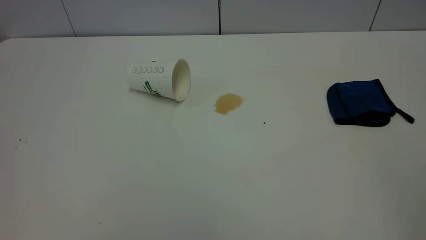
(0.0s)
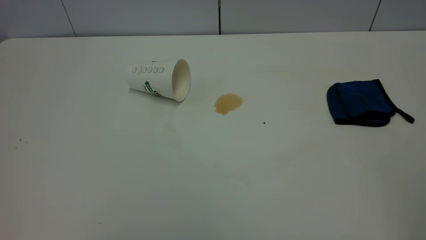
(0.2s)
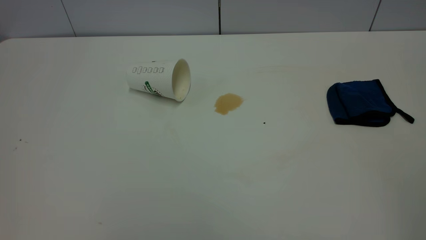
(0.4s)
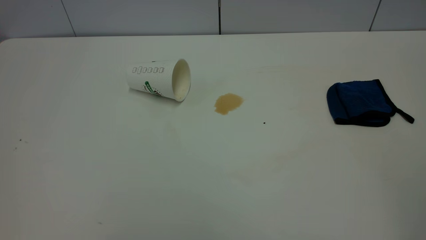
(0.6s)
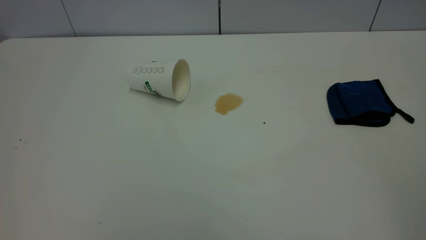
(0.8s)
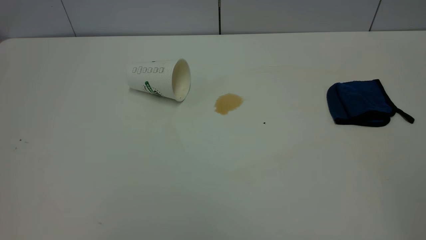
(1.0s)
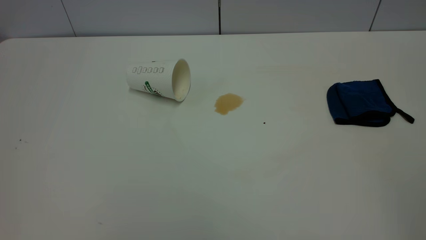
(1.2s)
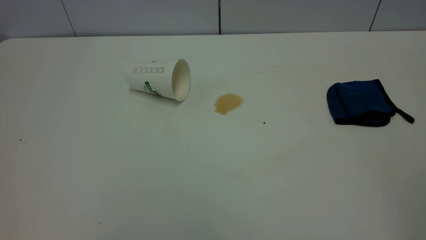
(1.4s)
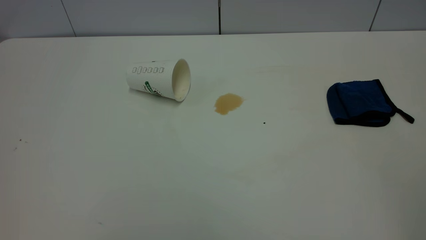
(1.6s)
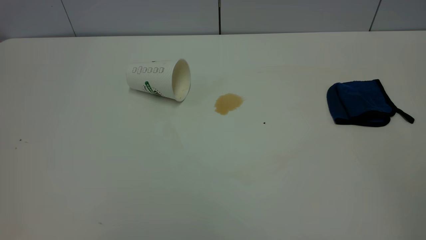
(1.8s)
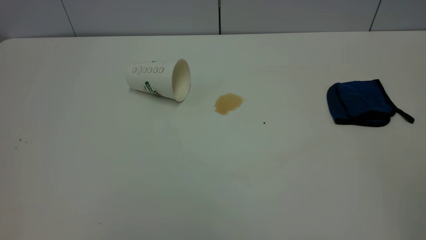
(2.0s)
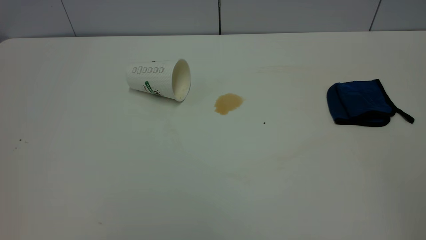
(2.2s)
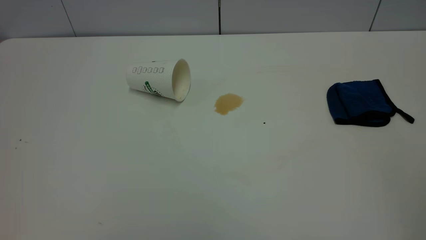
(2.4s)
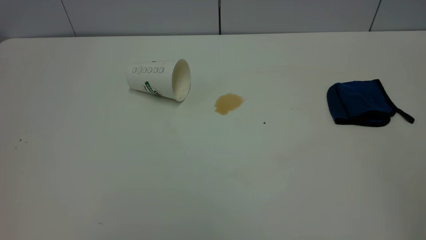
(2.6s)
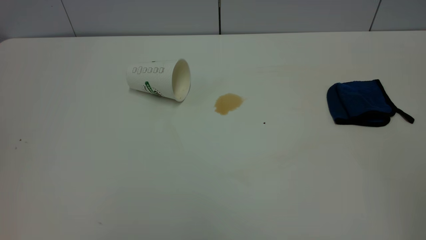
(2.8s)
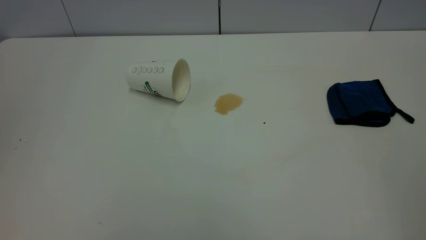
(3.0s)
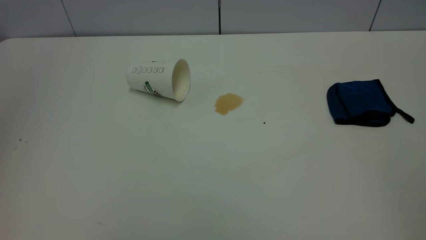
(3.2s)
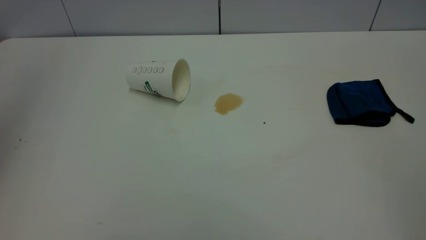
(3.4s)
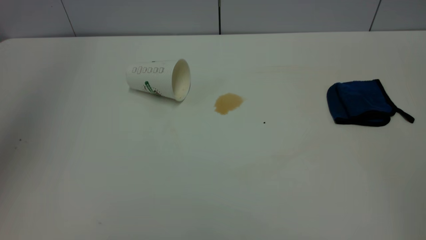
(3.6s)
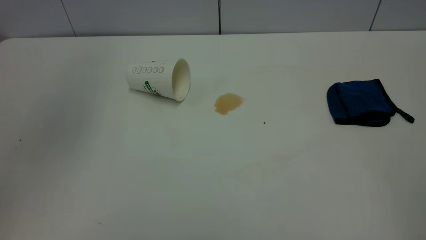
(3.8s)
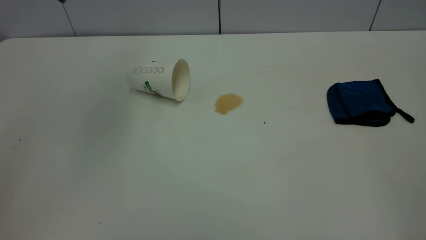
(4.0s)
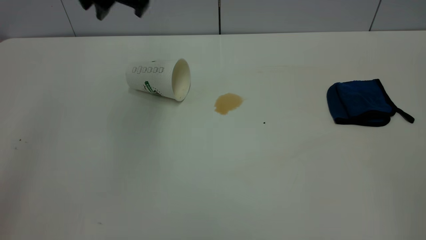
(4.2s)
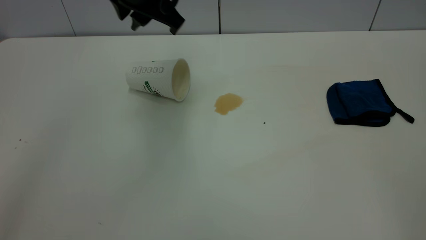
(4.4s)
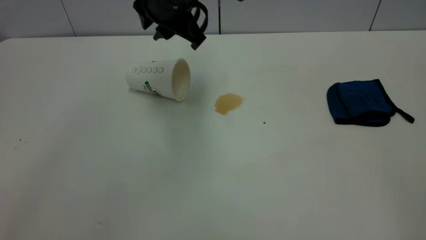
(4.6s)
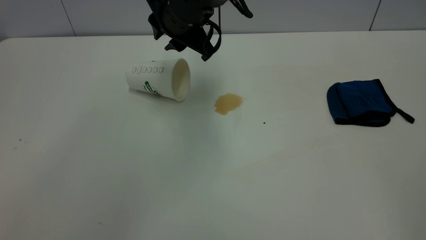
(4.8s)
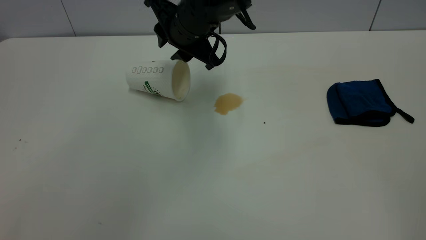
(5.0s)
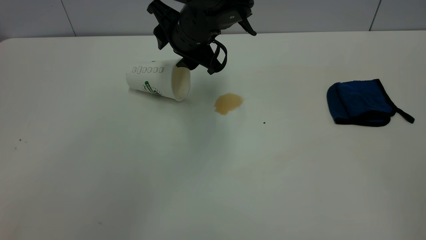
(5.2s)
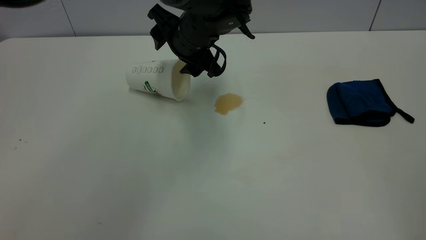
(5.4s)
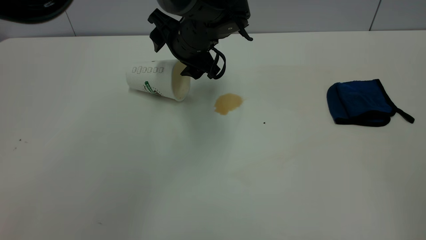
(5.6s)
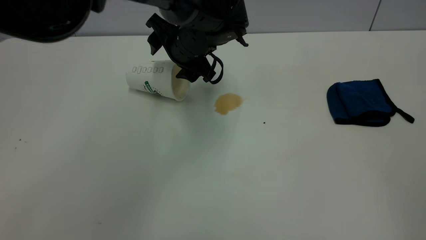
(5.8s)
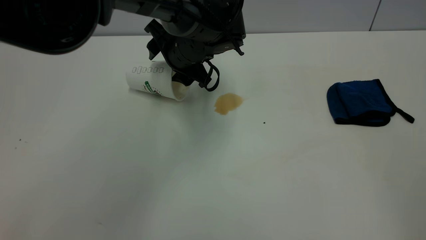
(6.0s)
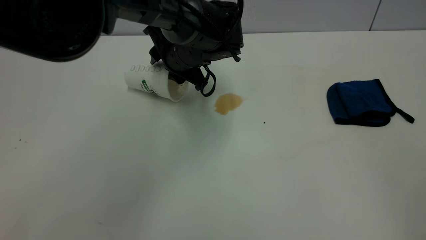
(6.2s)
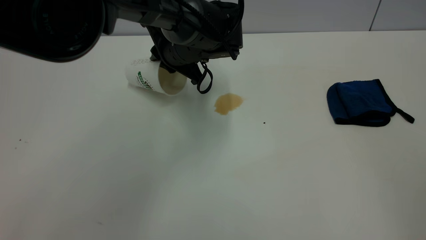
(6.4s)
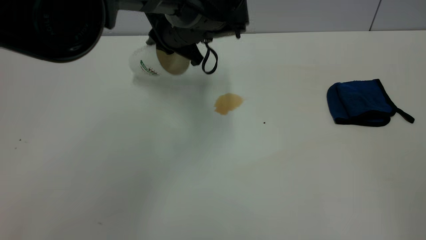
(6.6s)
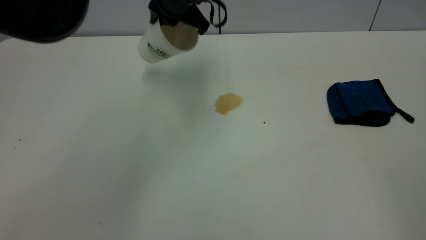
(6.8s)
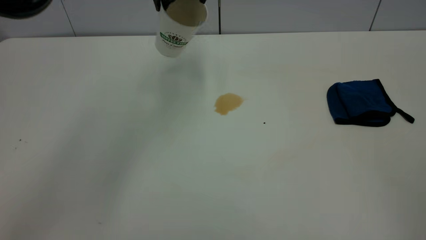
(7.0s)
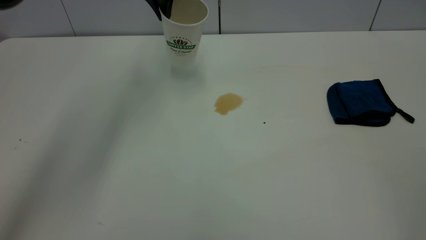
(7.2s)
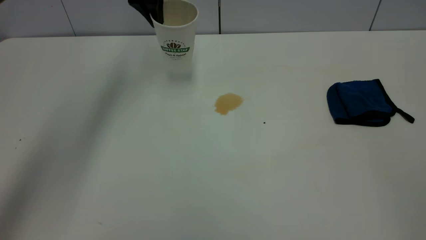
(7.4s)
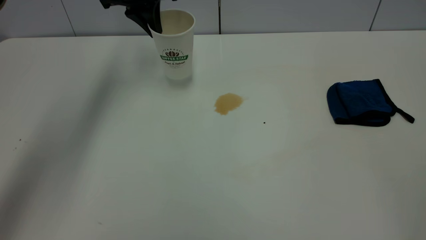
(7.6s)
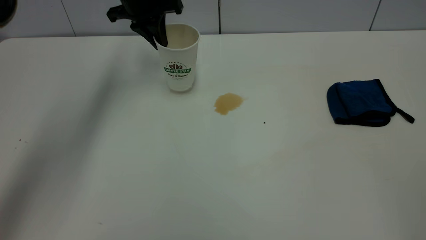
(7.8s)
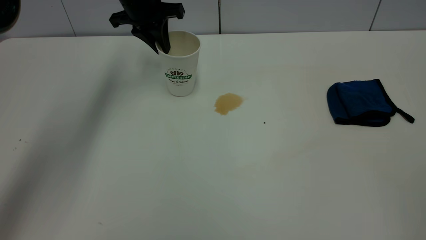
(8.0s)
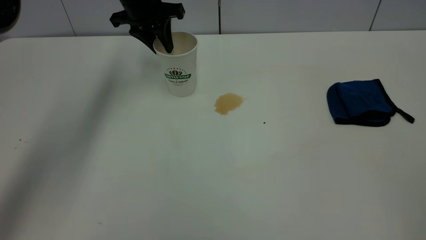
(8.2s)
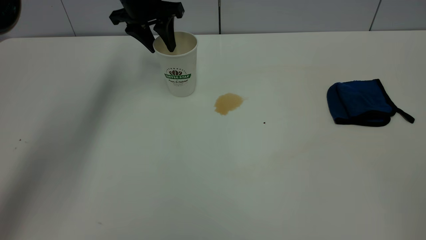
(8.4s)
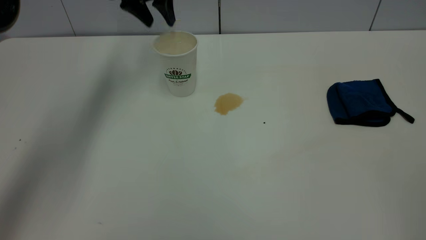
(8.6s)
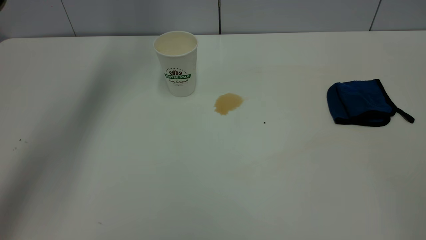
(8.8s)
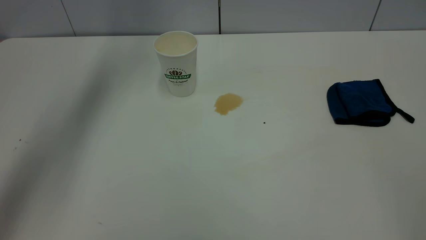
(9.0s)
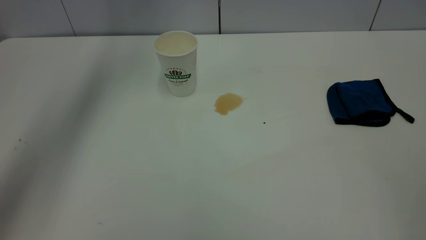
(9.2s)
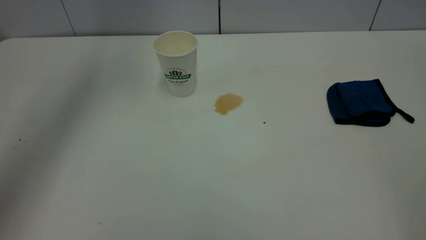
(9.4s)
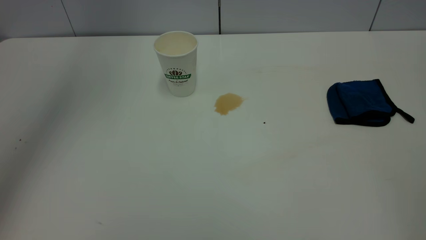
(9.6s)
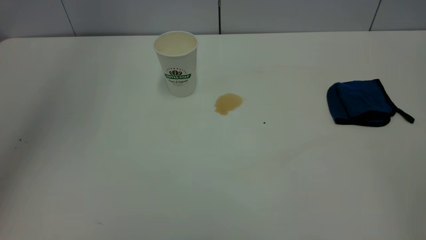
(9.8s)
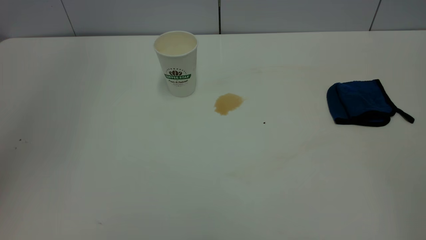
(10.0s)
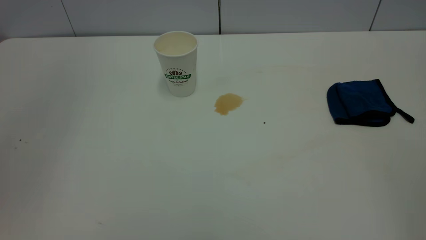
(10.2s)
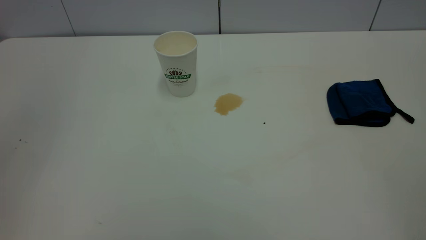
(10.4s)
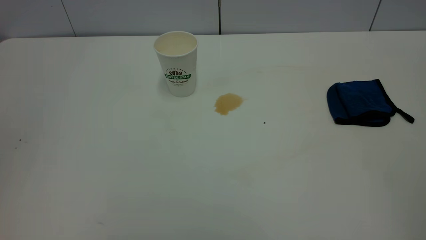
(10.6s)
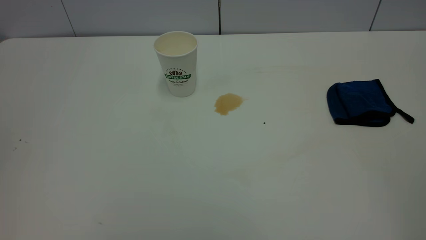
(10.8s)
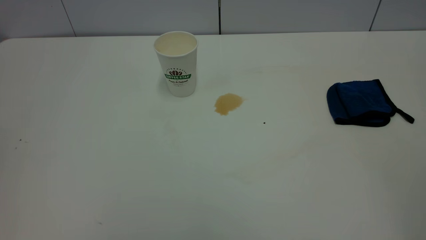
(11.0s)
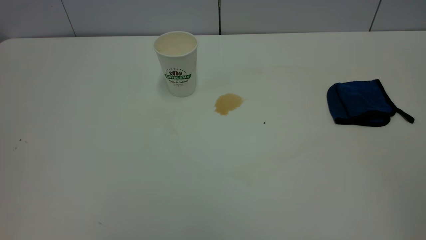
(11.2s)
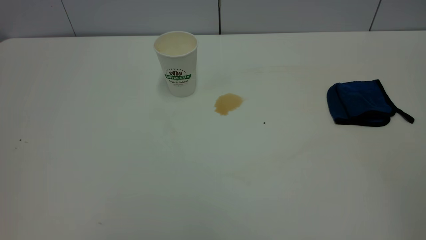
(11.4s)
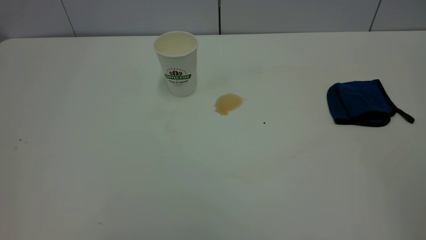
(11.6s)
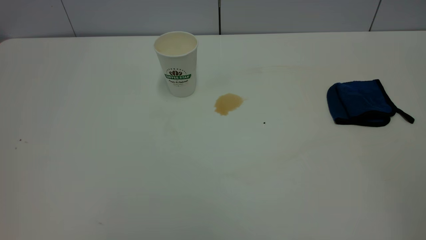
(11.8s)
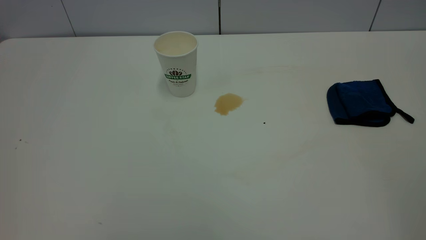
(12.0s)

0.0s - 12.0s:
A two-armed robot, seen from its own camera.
Task of the whole recording: the left gripper pick up the fallen cup and place it upright, the right gripper grasp the blue rag and wipe the tea stain on the table, the right gripper put the blue rag back in its original position.
Step, 0.0s - 8.6s: Stand the paper cup upright.
0.0s - 1.6s: The two grippers keep their place.
3.0s - 4.4s: The left gripper goes roughly 40 cm forward, to the right and downward.
4.4s - 6.0s: The left gripper shifts about 15 cm downward and forward, and opens its fingers.
6.0s - 7.6s: The left gripper shifts roughly 20 cm to the left, upward and forward, and closes.
7.6s - 9.0s: The left gripper shifts about 10 cm upward, and opens.
9.0s - 10.4s: The left gripper goes roughly 35 cm backward.

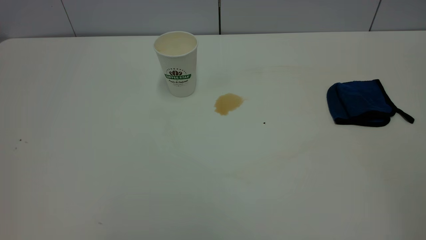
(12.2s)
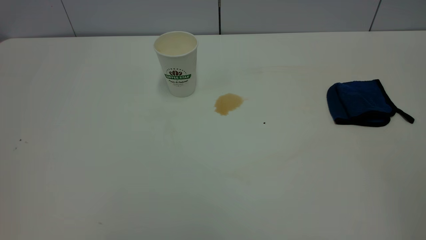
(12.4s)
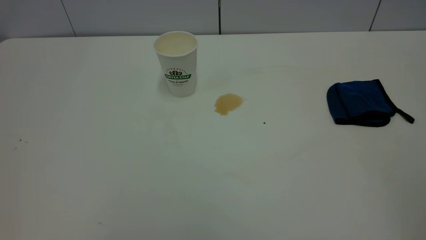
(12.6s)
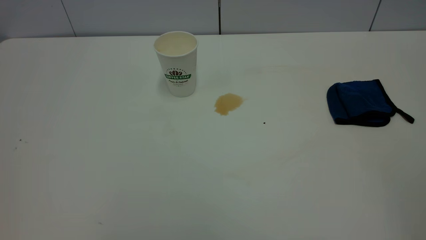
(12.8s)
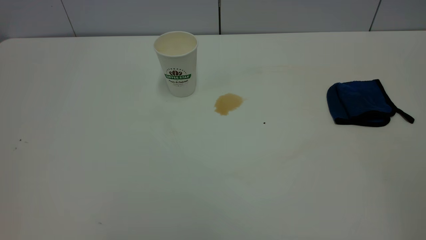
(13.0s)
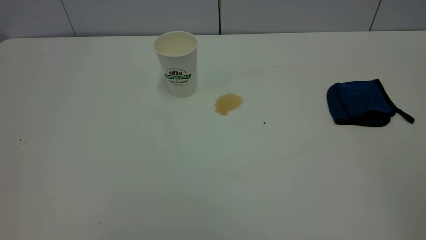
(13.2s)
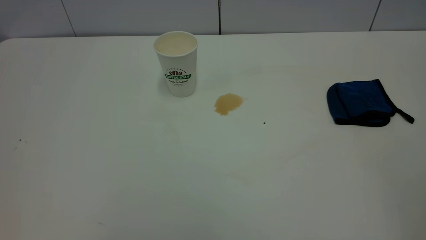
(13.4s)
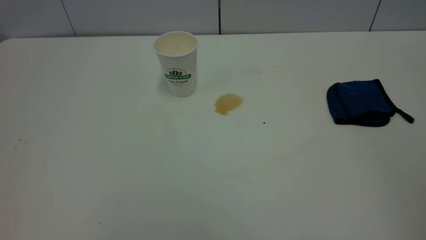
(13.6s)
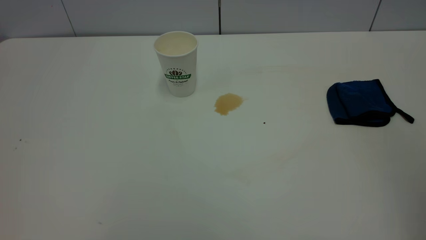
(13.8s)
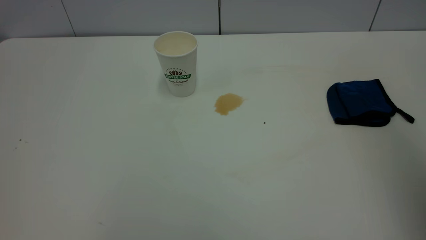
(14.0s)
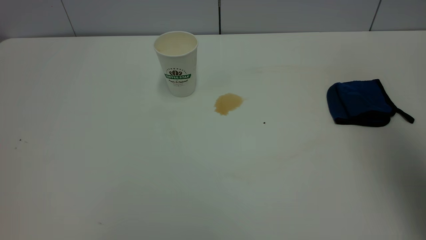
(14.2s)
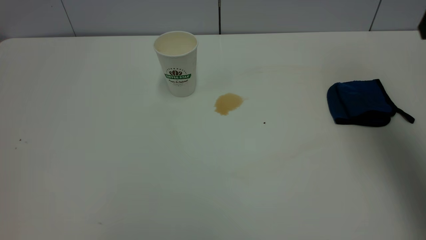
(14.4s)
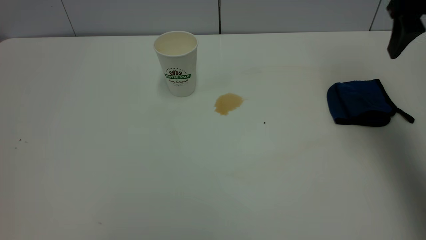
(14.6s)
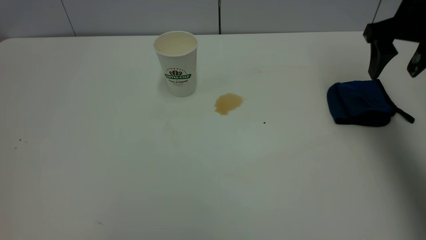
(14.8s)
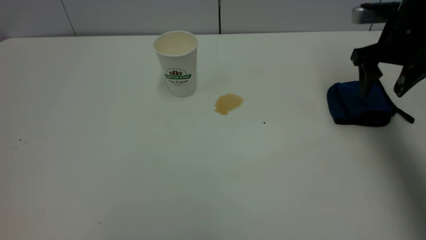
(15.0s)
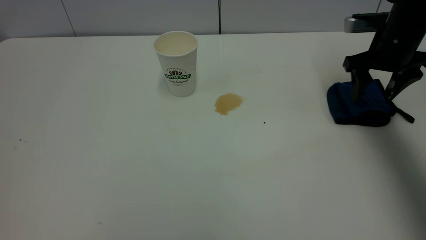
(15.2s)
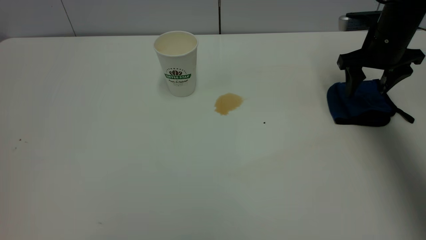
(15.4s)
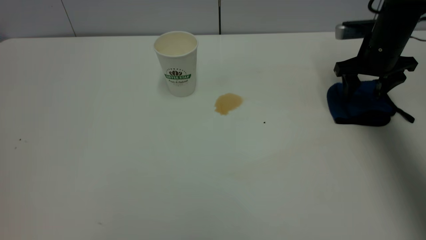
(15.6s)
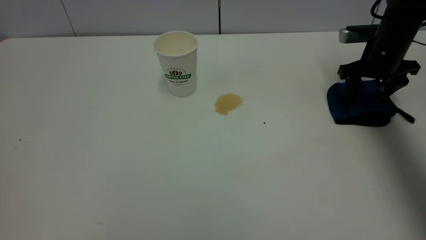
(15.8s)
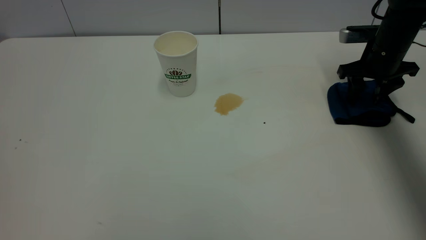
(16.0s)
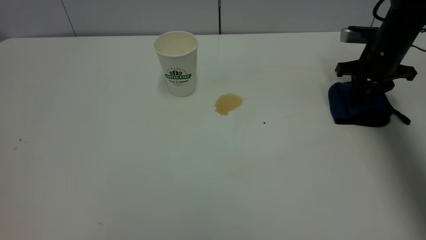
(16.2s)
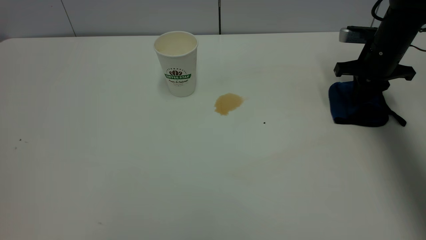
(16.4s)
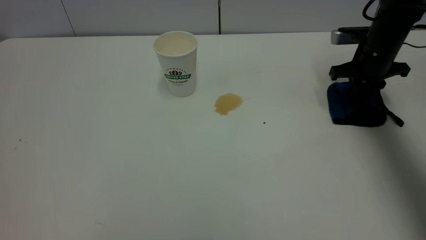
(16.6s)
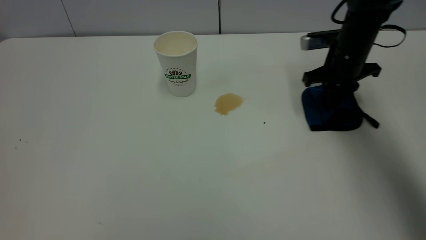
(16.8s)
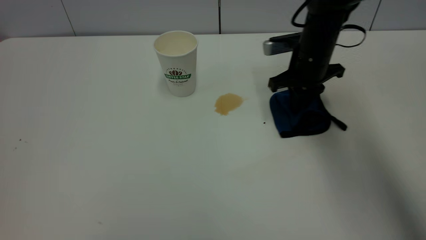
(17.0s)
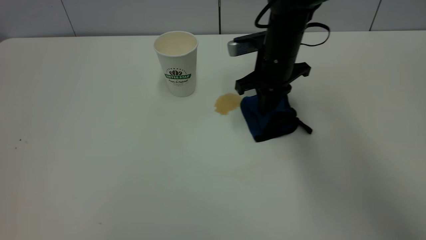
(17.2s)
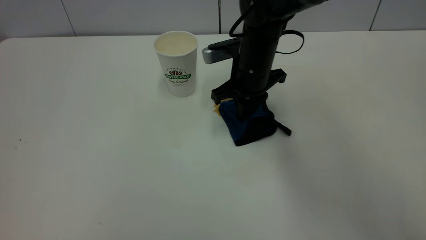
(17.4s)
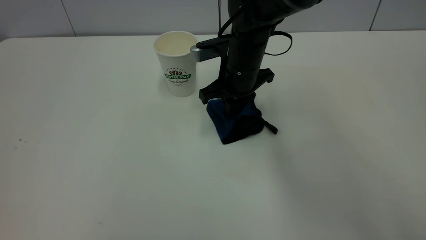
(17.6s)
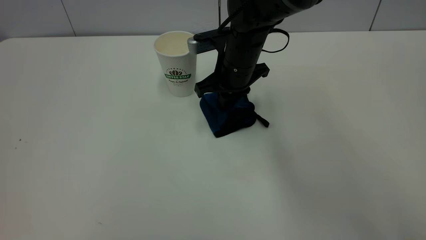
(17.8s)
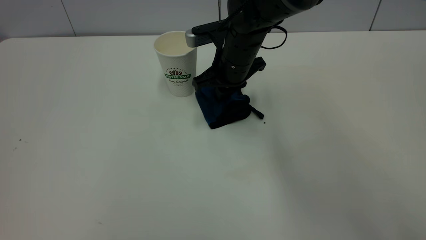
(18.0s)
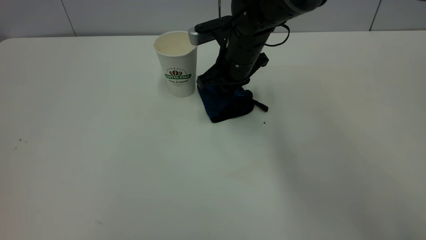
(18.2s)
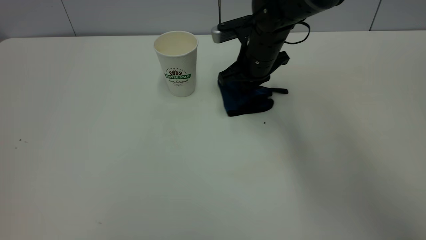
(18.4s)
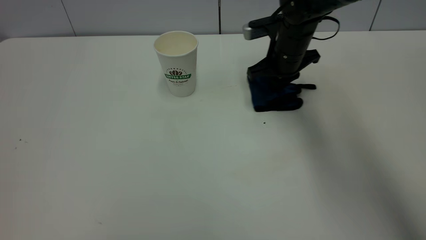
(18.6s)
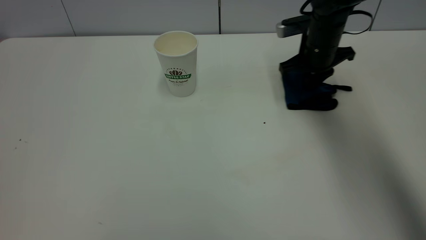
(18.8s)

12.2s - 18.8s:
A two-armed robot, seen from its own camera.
Task of the whole recording: the left gripper pick up the fallen cup and place it upright, the right gripper grasp the blue rag and wipe the tea stain on the table, the right gripper put the blue rag back in its original position.
13.8s - 15.4s: The right gripper shifts approximately 50 cm forward and downward.
15.4s - 17.2s: The right gripper moves to the left, about 20 cm, and closes.
17.2s - 18.8s: The right gripper moves to the right, roughly 10 cm.
